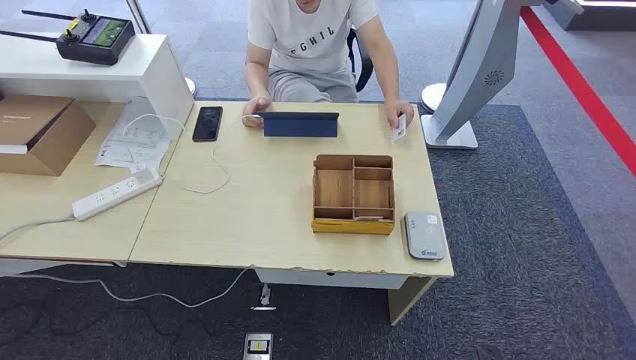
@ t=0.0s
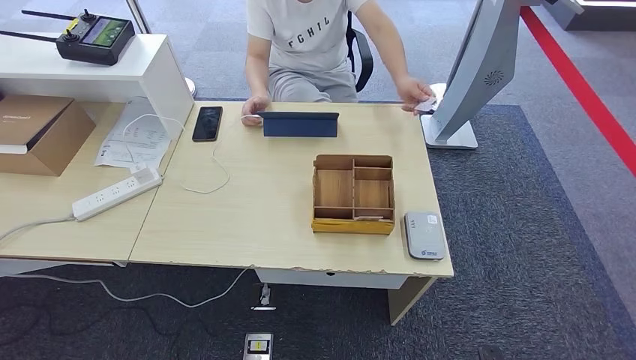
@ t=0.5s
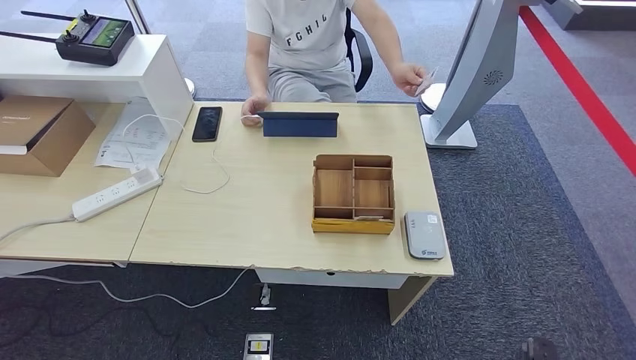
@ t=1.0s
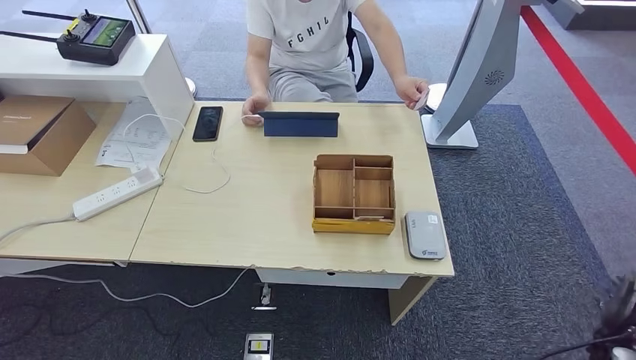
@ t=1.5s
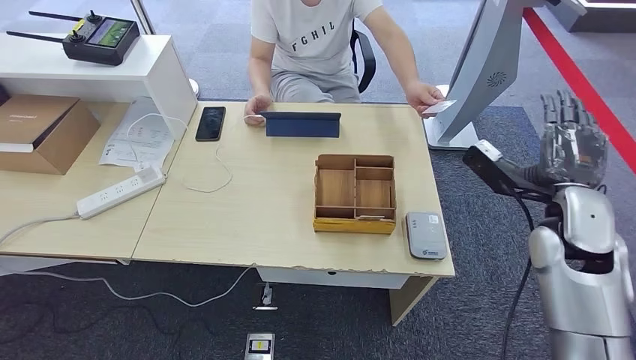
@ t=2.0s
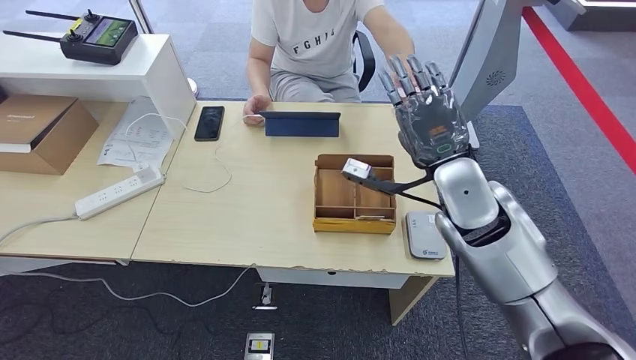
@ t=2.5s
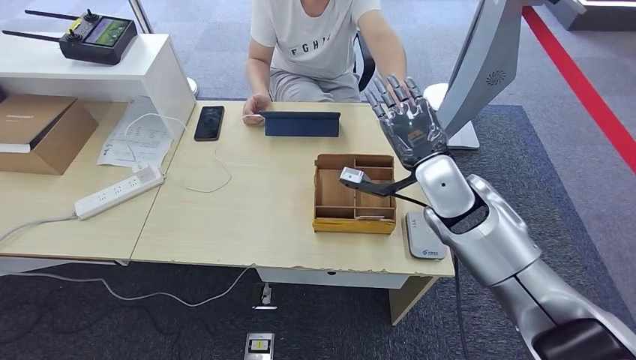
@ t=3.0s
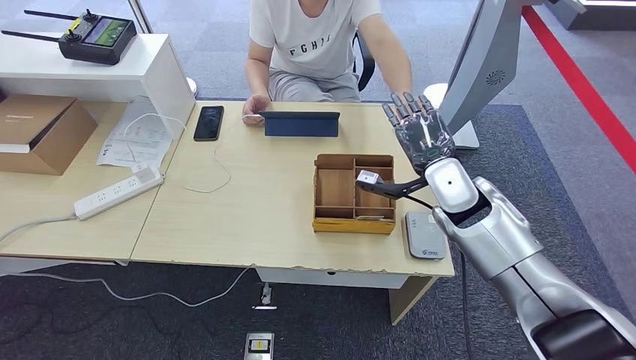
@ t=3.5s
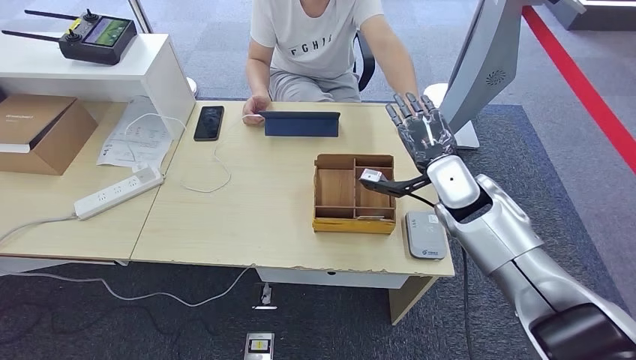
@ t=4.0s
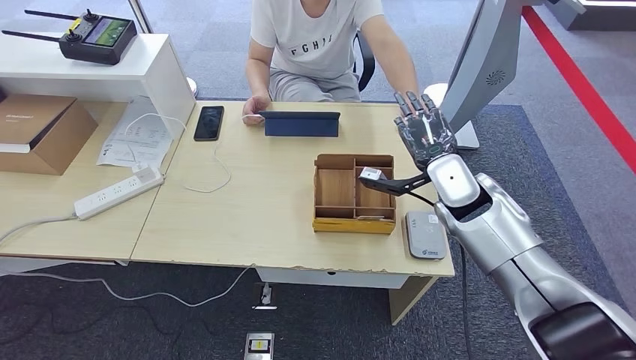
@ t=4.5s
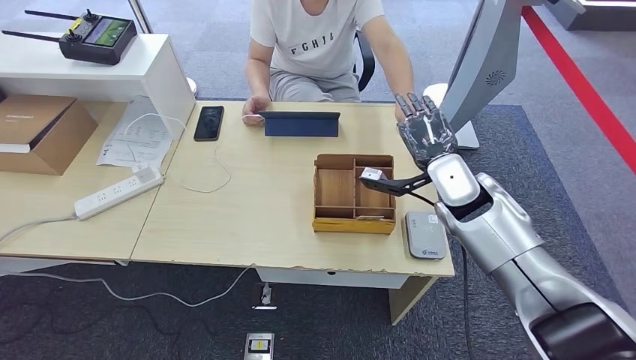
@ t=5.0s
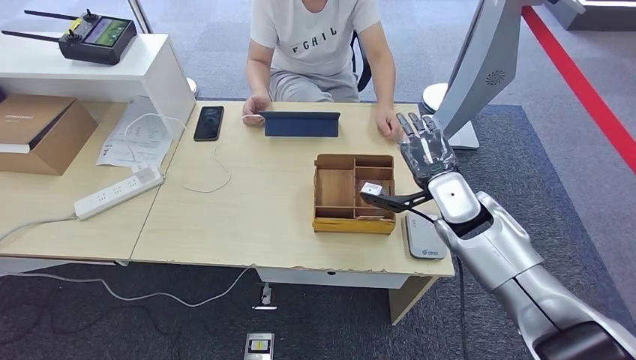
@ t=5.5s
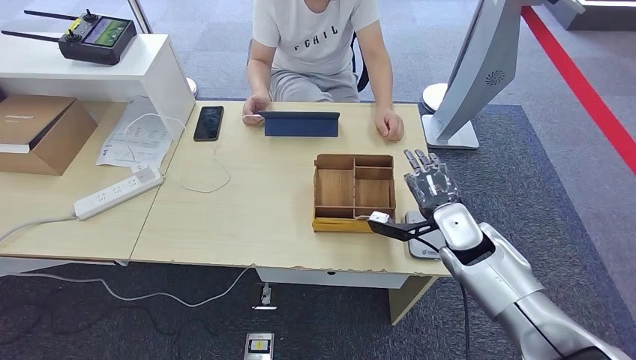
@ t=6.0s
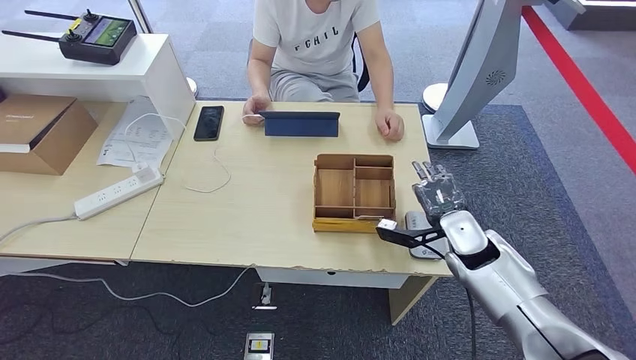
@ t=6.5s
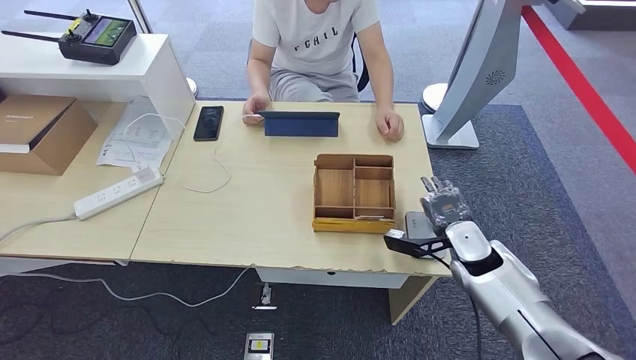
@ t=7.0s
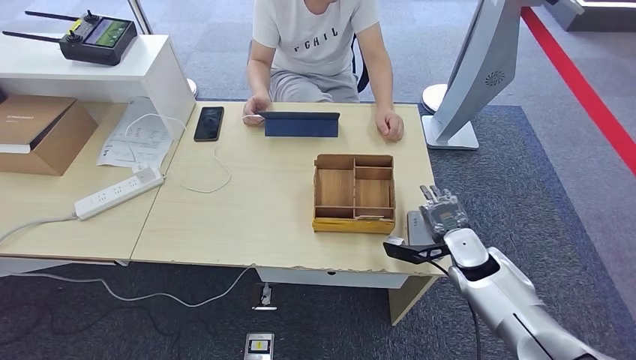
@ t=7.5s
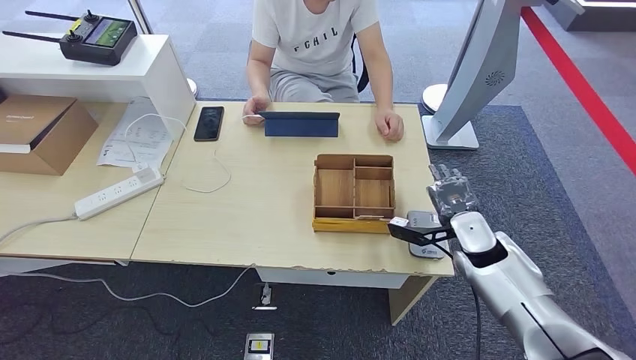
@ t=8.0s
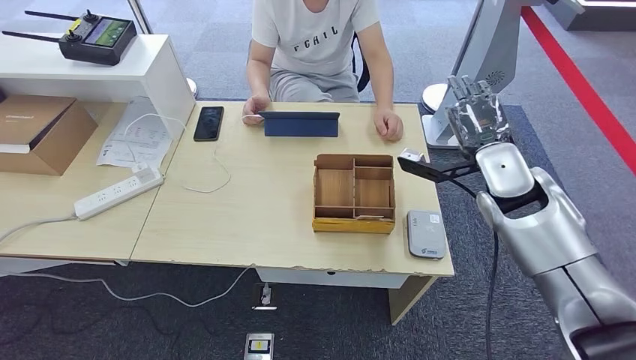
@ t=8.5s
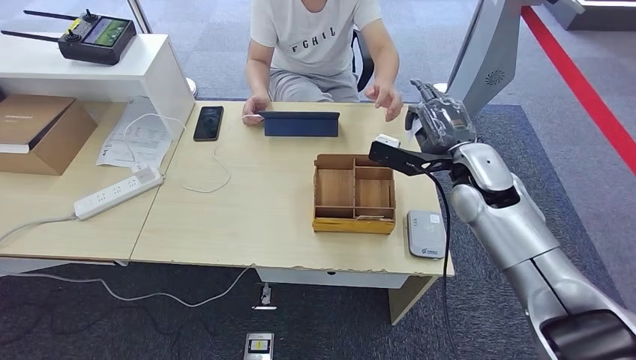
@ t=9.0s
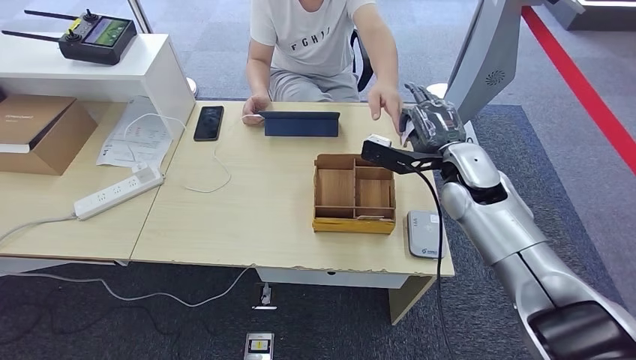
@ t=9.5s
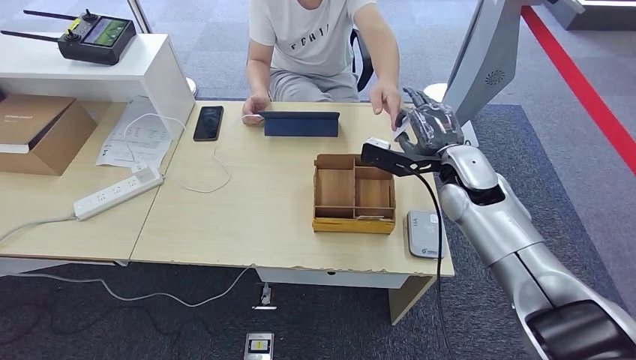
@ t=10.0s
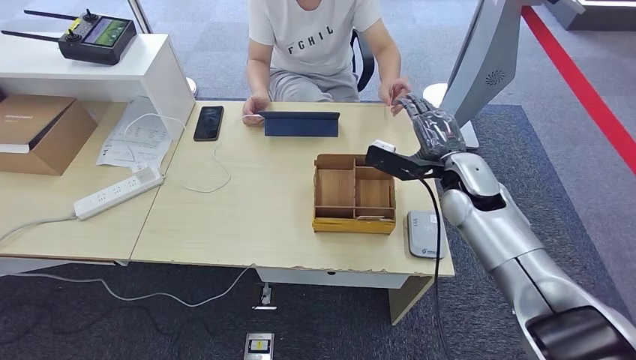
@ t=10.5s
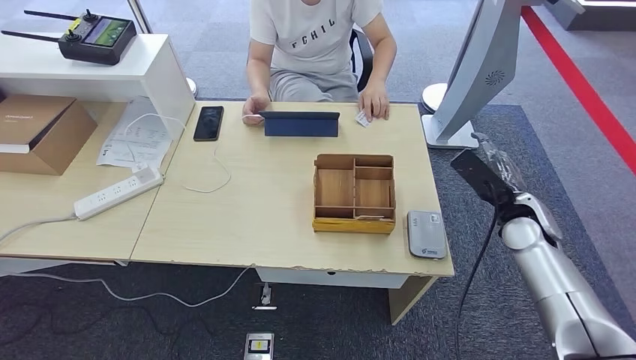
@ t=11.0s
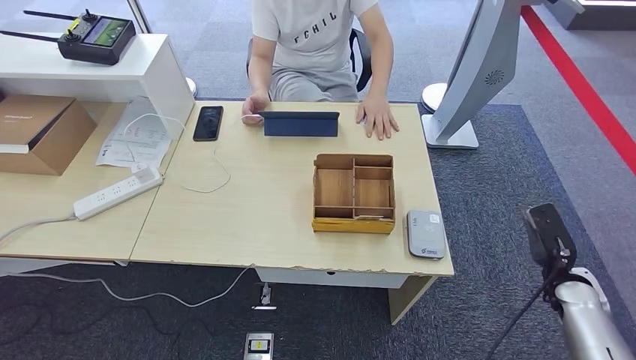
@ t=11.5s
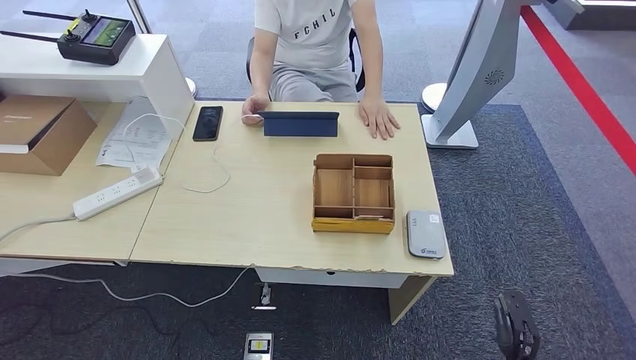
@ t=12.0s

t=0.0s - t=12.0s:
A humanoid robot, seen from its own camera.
Step, t=0.0s - t=5.5s: Take the ID card from the person's hand.
Step, t=6.0s - t=7.0s: Place the ID card on the card reader.
Step, t=7.5s - t=10.0s: Hand the ID card to the person.
t=2.0s - t=4.0s: The right hand is displaced to the left and forward by some 15 cm.
t=4.0s - t=6.0s: The right hand moves downward and backward, some 10 cm.
t=8.0s - t=10.0s: The right hand is displaced upward, forward and to the left by some 15 cm.
t=10.0s - t=12.0s: The right hand shifts about 40 cm backward, downward and to the right.

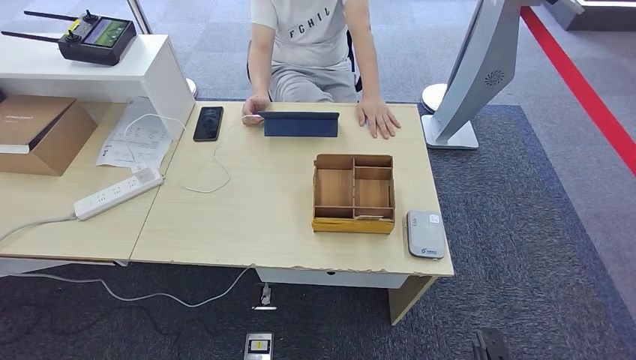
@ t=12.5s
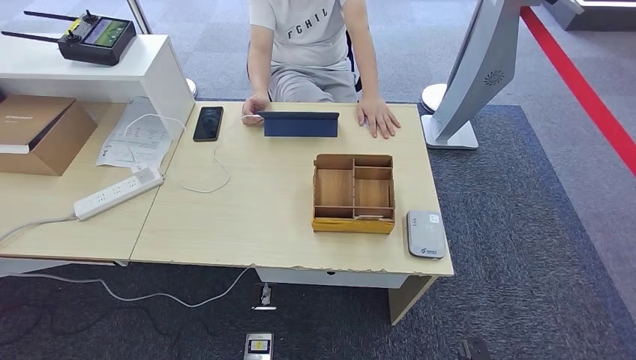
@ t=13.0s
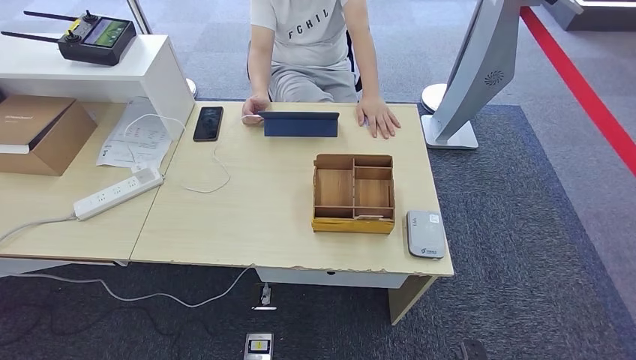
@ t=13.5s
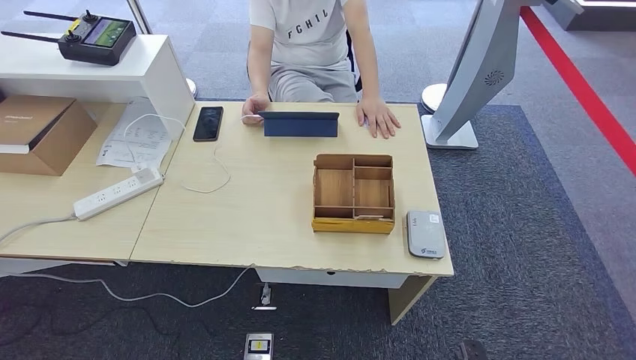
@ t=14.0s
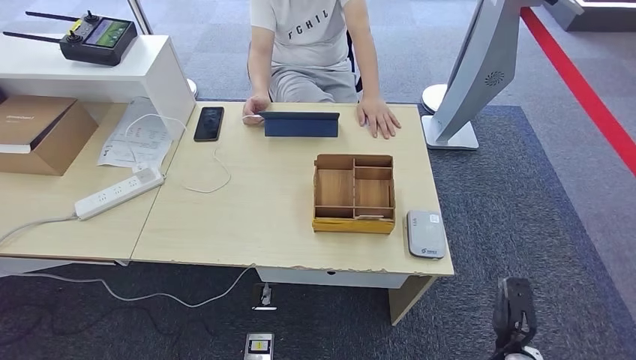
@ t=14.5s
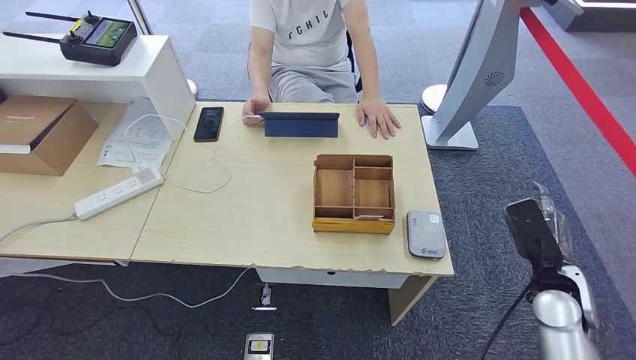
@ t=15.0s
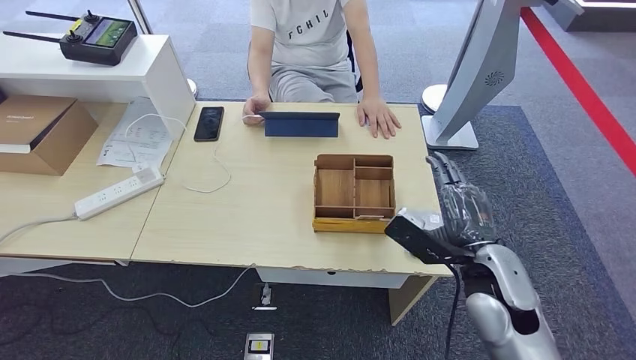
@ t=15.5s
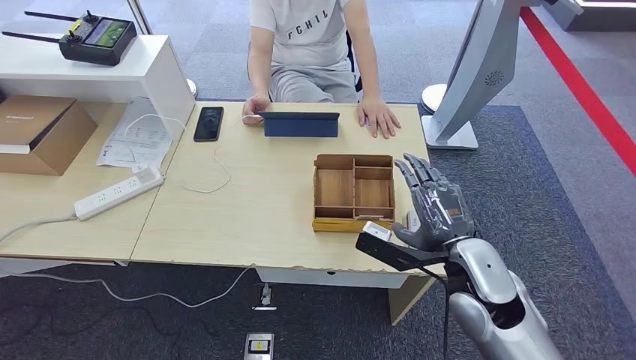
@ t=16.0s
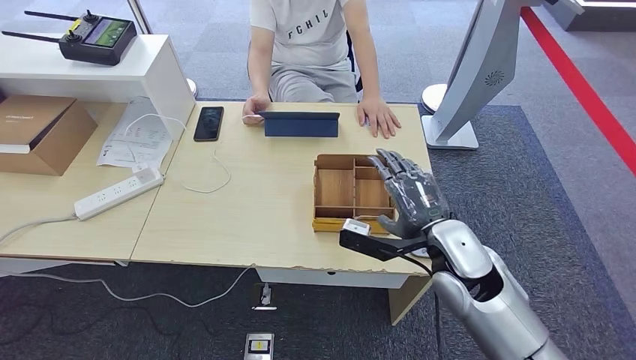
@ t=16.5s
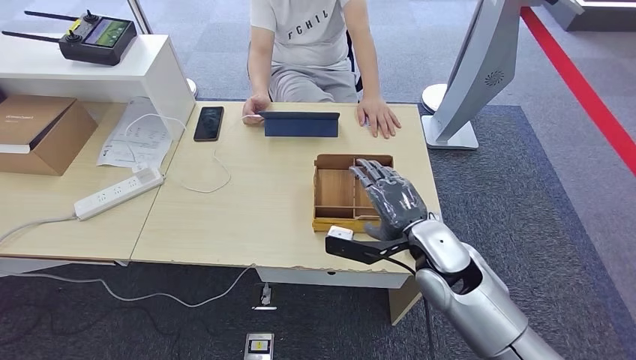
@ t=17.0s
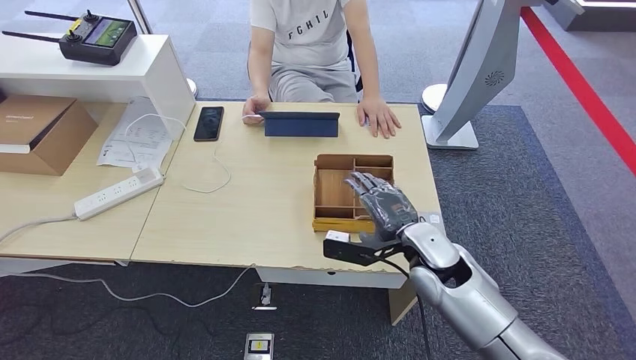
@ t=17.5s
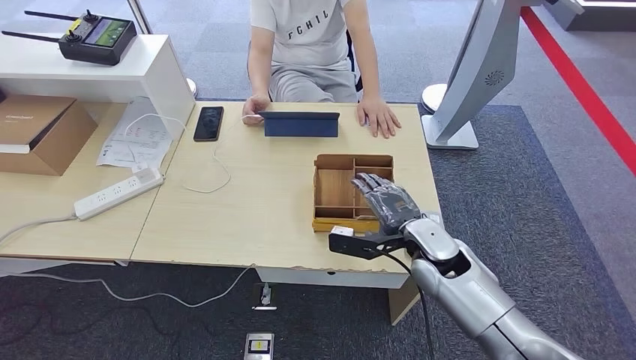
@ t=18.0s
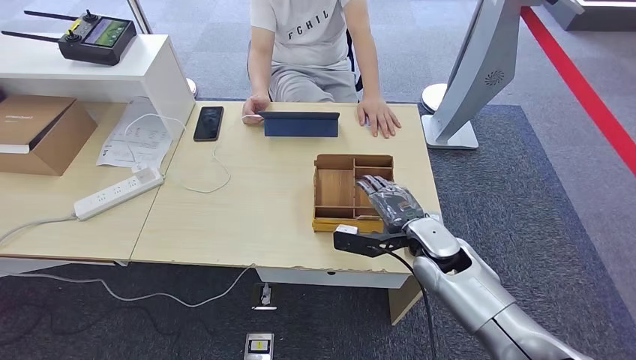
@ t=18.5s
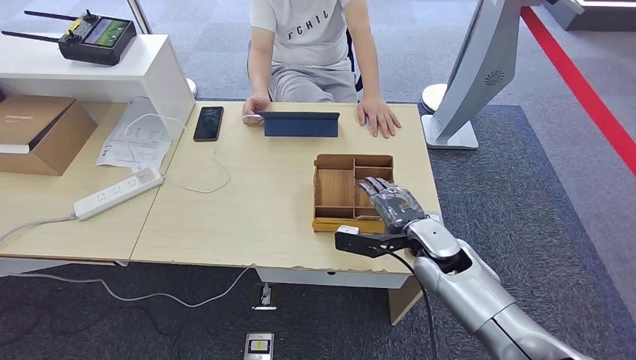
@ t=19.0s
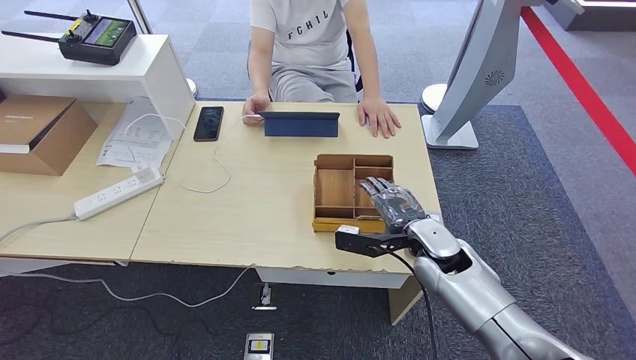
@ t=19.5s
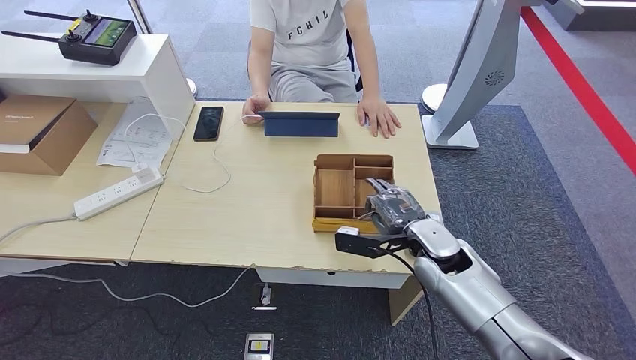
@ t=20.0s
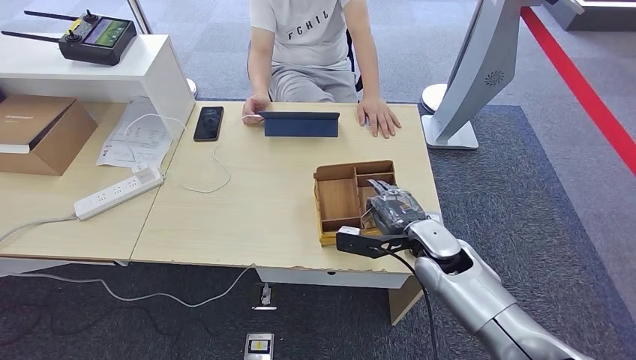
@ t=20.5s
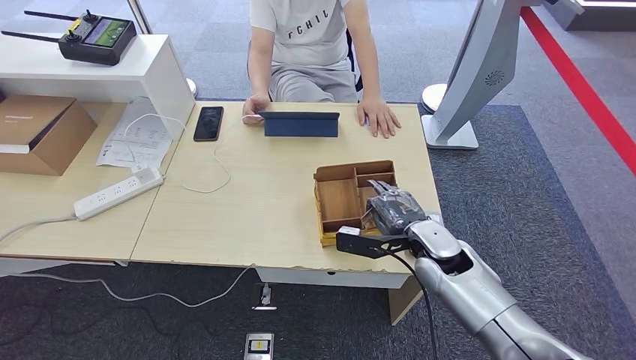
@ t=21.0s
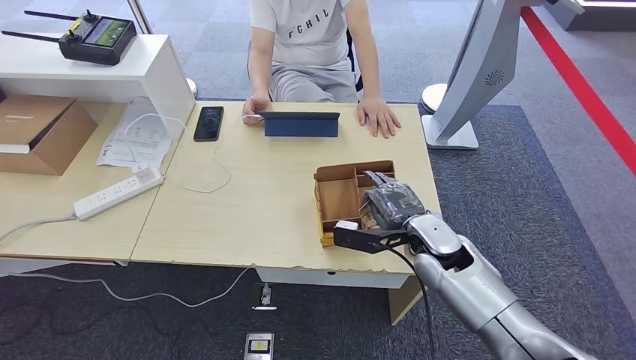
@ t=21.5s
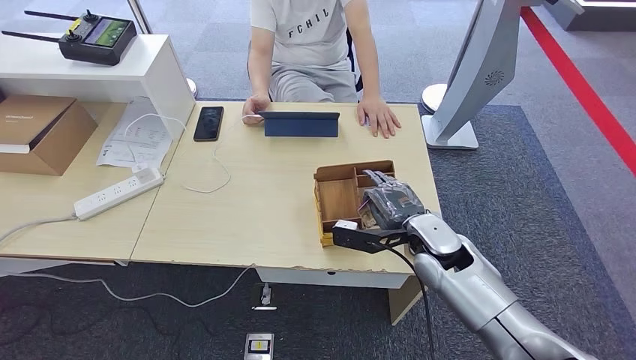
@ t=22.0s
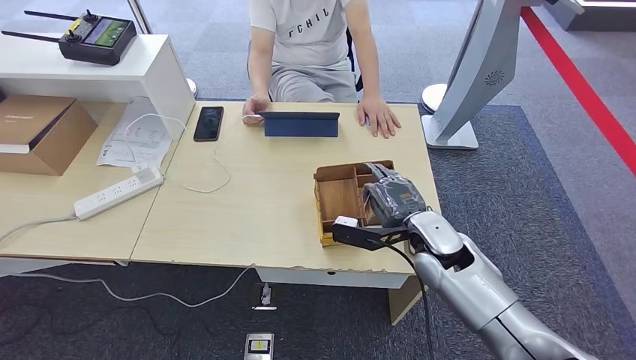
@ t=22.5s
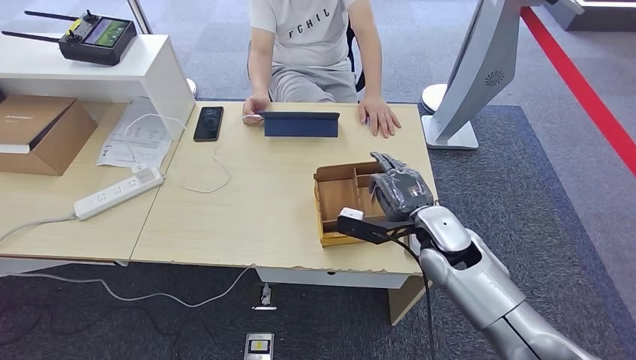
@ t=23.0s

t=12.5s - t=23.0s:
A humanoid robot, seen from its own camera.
Step, t=12.5s - t=21.0s: Pick up the room key from the key card box.
t=12.5s - t=14.5s: The right hand travels forward by approximately 10 cm.
t=14.5s - t=16.5s: The right hand goes some 35 cm upward, forward and to the left.
t=16.5s - t=19.0s: The right hand goes approximately 5 cm downward.
t=19.0s - t=21.0s: Both hands stay about where they are.
t=21.0s - t=23.0s: The hands stay close to where they were, moving slightly.
